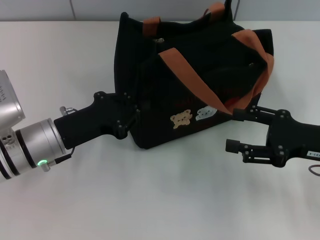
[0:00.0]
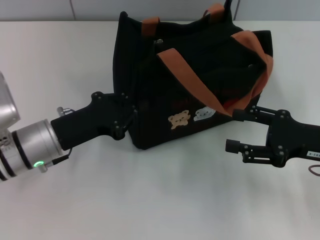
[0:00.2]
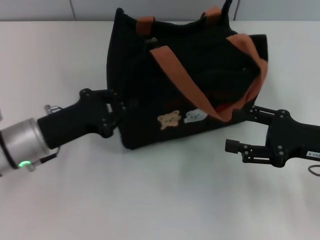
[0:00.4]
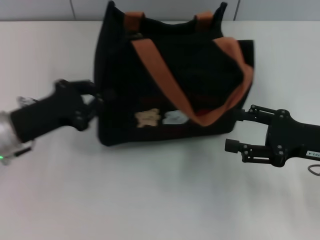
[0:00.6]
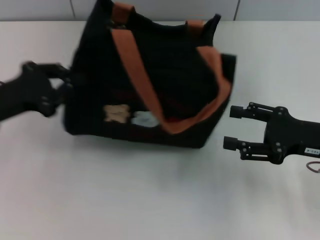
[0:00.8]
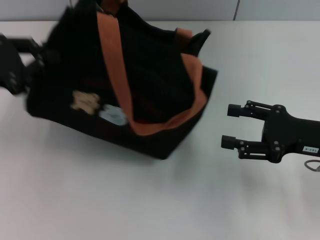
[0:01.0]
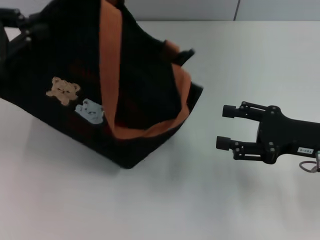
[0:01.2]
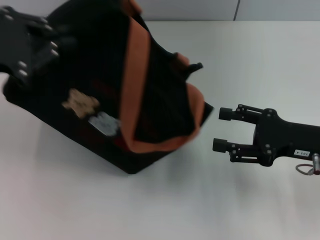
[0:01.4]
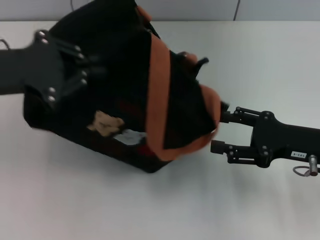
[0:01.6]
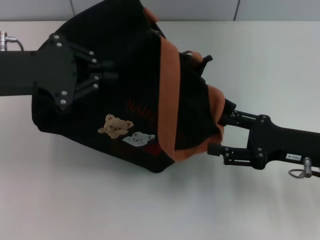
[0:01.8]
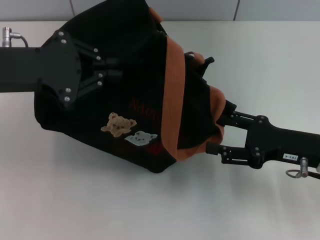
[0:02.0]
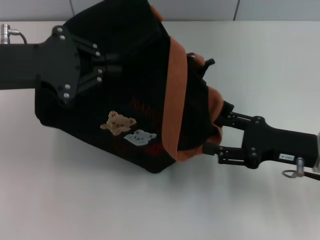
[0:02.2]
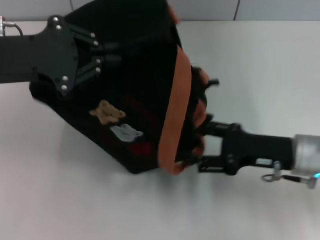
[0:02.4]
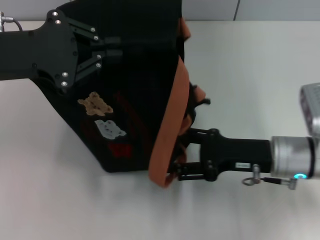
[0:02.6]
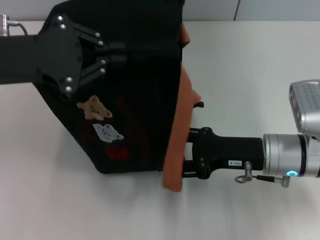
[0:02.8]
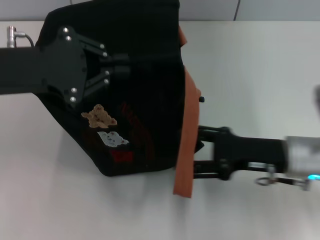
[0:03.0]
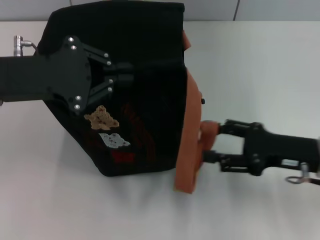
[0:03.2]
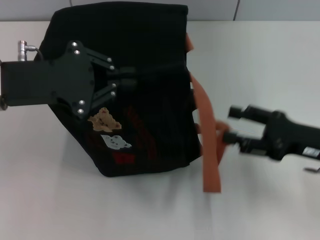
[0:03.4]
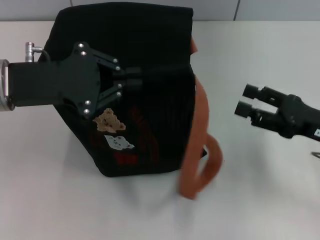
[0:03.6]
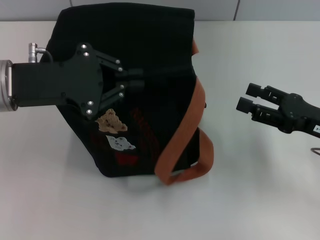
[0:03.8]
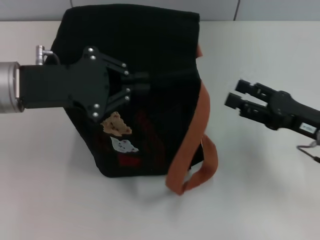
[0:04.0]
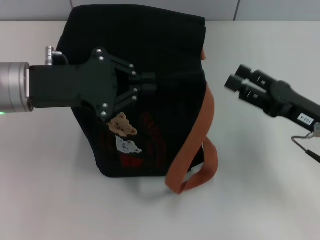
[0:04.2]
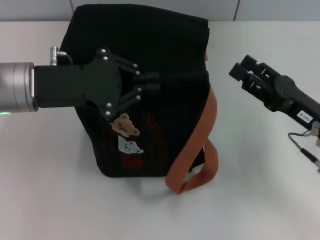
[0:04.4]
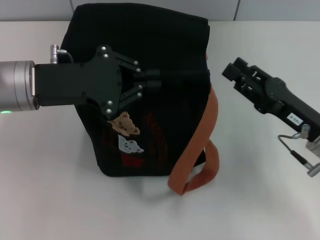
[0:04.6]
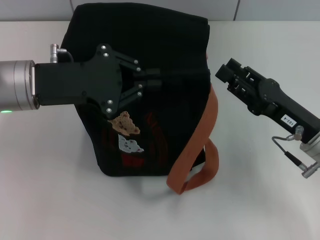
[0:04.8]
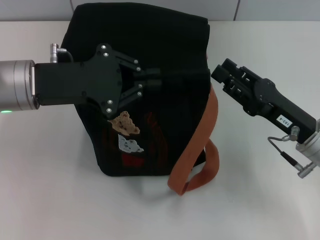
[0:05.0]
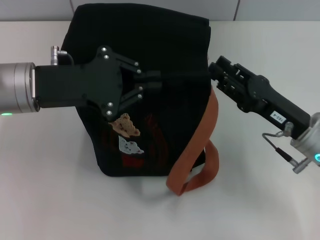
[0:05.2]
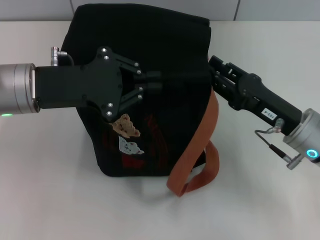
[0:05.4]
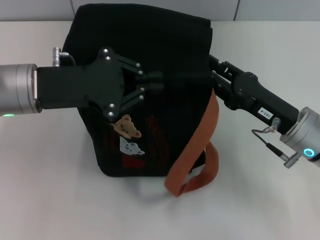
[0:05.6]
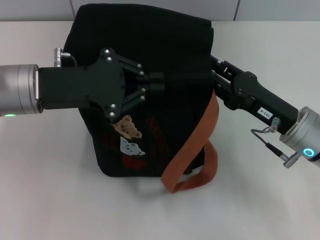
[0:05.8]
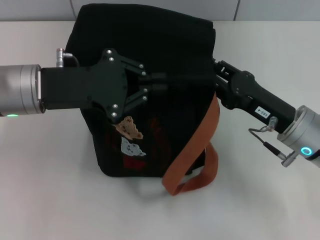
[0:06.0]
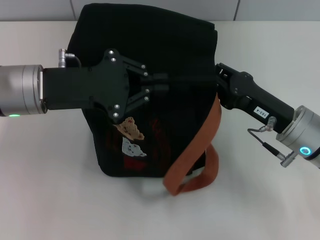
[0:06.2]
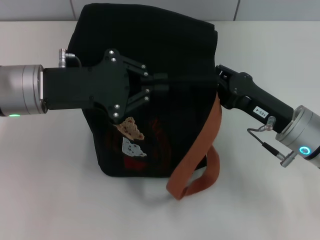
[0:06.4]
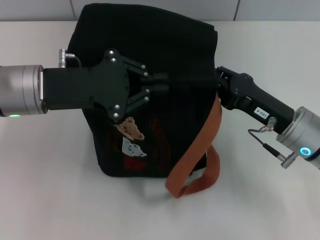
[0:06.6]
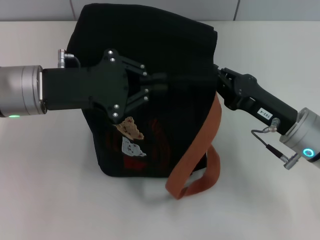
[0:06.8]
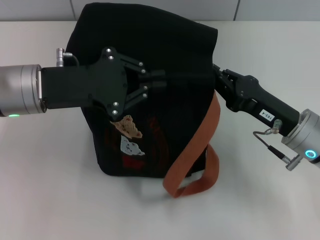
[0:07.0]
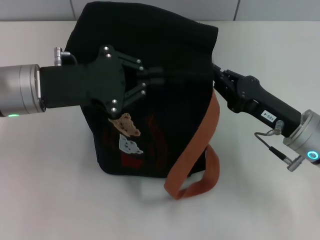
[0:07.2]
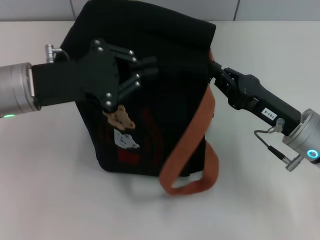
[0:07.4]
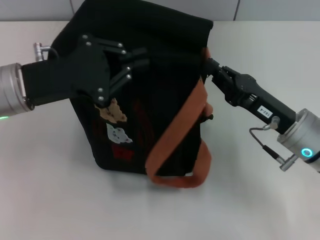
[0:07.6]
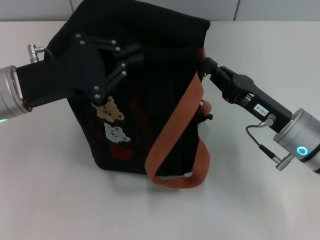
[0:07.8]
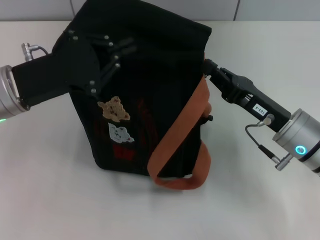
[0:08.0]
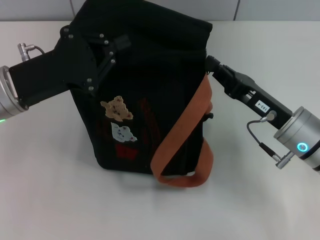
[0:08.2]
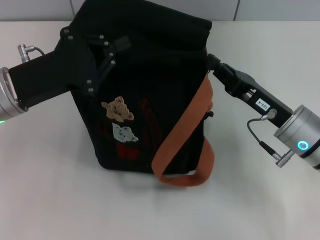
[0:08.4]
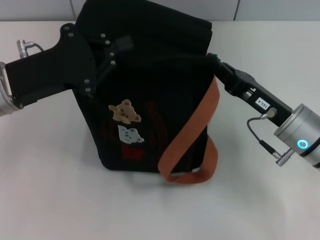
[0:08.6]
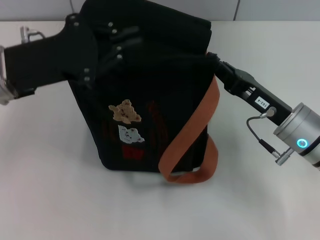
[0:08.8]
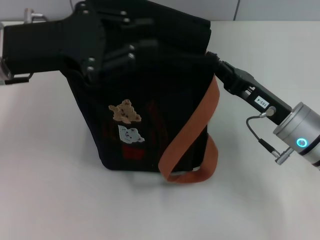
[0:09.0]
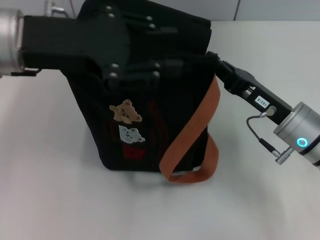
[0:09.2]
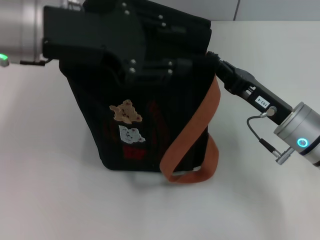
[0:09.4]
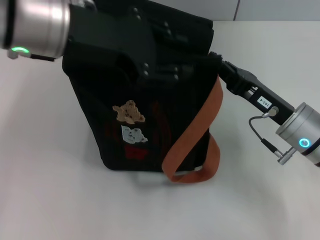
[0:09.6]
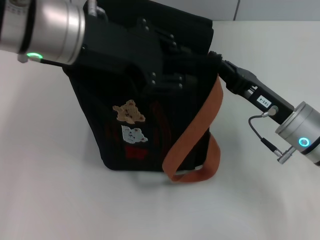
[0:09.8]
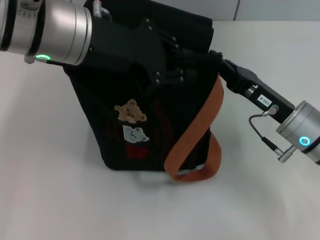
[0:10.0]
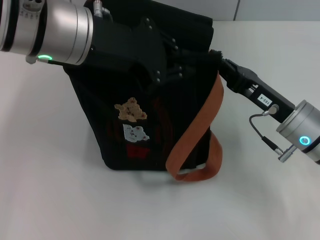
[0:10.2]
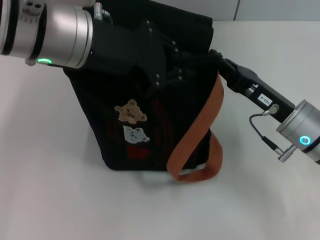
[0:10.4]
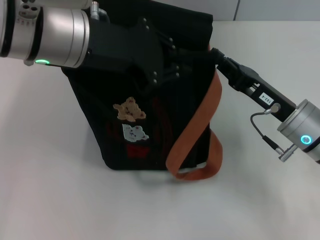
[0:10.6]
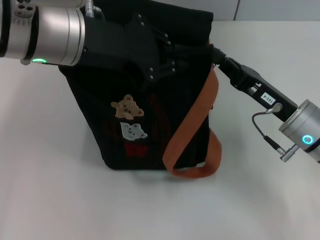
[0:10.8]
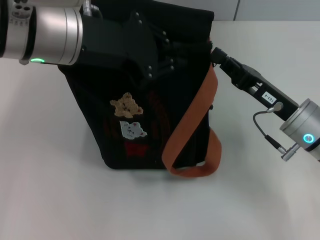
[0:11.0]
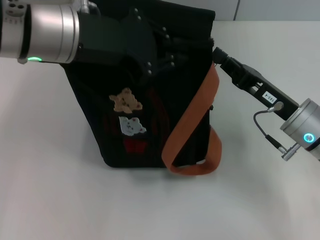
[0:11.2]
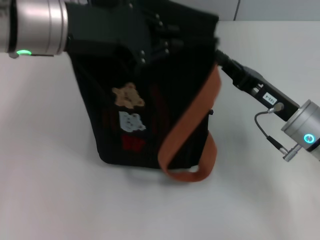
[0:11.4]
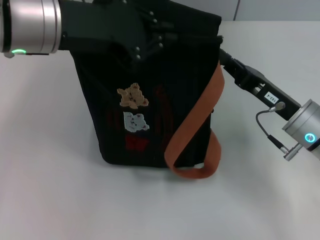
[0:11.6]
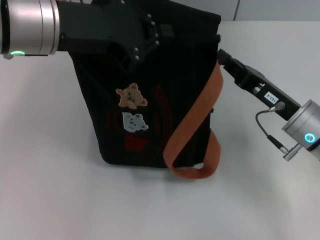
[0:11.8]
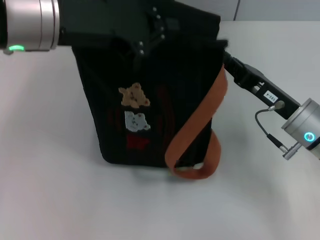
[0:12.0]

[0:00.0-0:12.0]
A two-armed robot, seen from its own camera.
0:00.0 to 0:01.6: The left gripper heads upward and to the left, covering about 15 cm.
0:01.6 to 0:03.0: The right gripper moves to the left, about 5 cm.
0:04.4 to 0:06.0: The right gripper goes about 5 cm to the left, and closes.
0:06.0 to 0:07.6: The right gripper closes.
0:07.6 to 0:09.0: The left gripper goes approximately 5 cm upward.
0:09.0 to 0:10.4: The left gripper travels to the right by roughly 10 cm.
0:10.4 to 0:12.0: There are only small adjustments of the grippers.

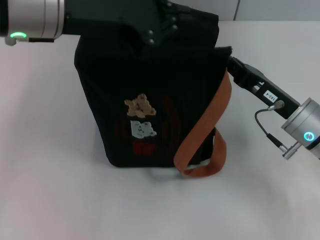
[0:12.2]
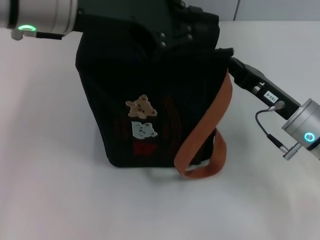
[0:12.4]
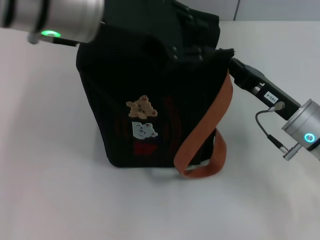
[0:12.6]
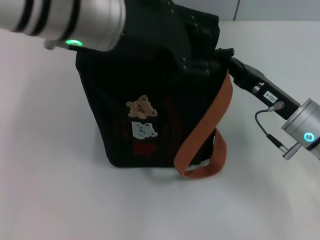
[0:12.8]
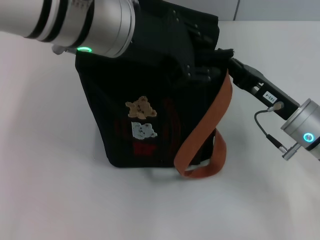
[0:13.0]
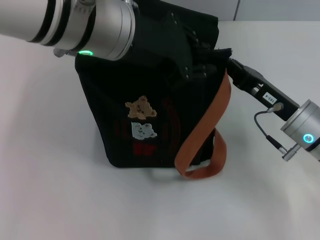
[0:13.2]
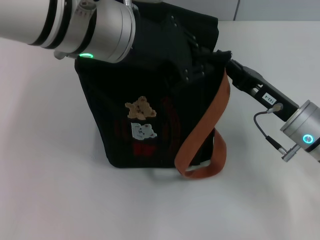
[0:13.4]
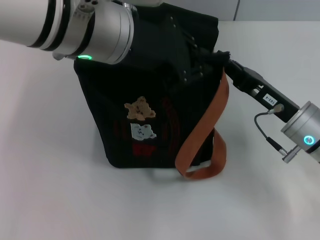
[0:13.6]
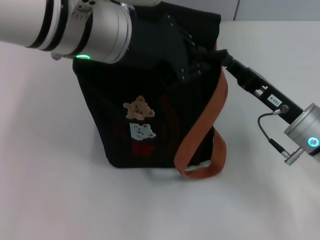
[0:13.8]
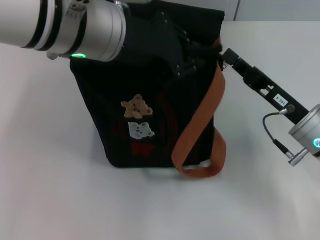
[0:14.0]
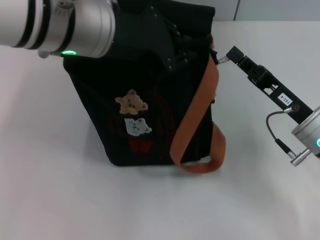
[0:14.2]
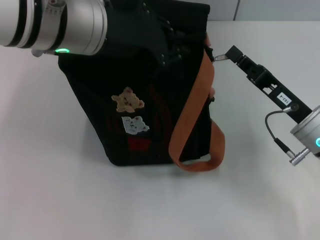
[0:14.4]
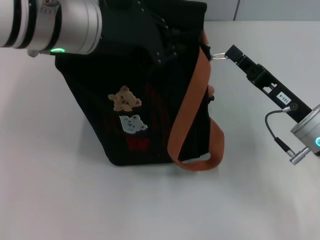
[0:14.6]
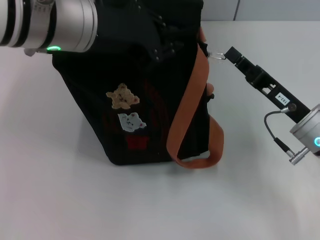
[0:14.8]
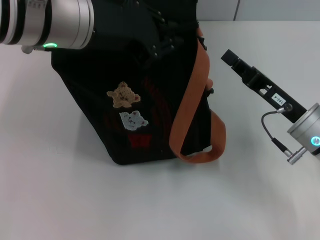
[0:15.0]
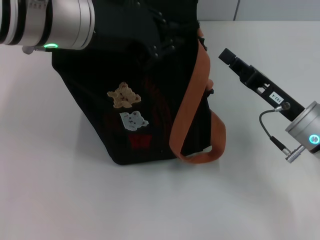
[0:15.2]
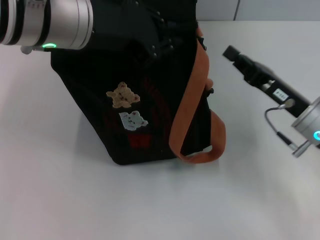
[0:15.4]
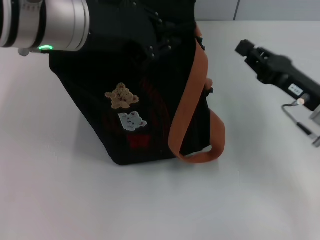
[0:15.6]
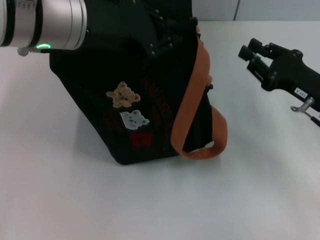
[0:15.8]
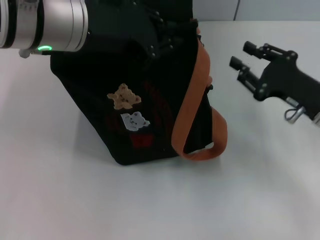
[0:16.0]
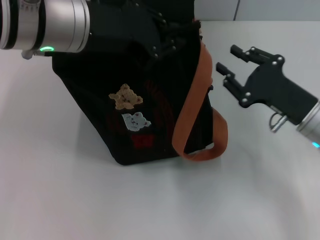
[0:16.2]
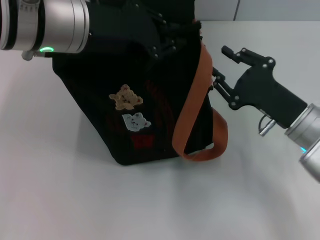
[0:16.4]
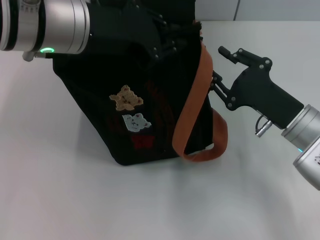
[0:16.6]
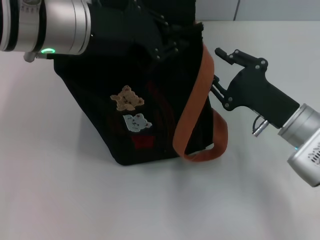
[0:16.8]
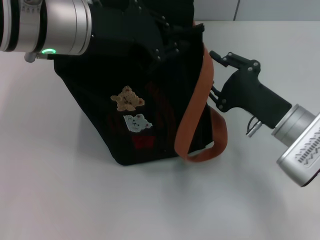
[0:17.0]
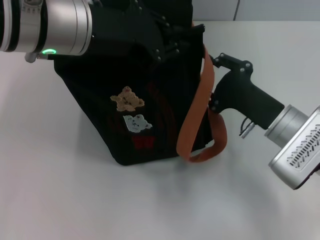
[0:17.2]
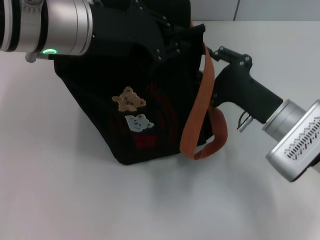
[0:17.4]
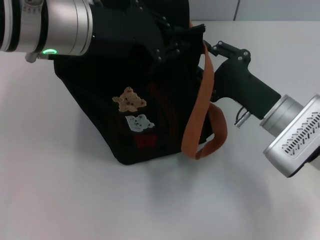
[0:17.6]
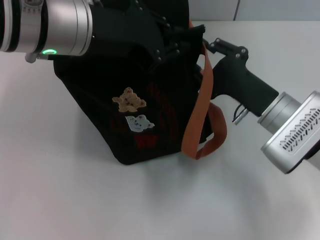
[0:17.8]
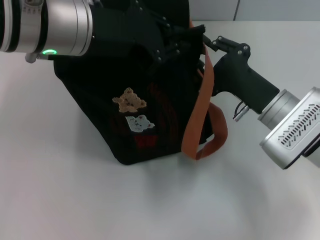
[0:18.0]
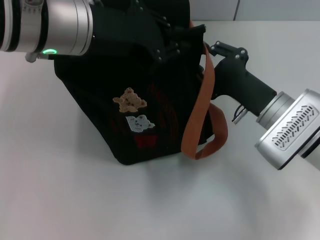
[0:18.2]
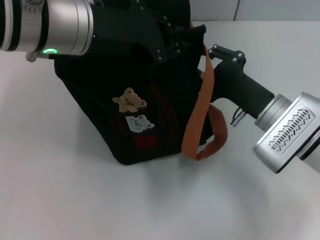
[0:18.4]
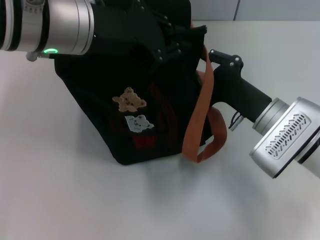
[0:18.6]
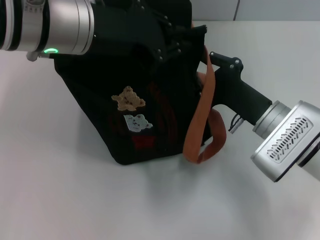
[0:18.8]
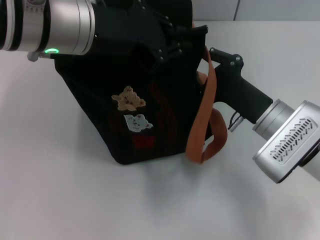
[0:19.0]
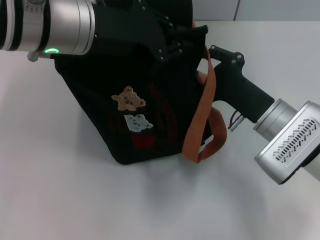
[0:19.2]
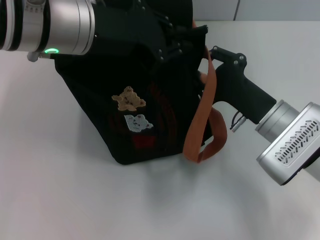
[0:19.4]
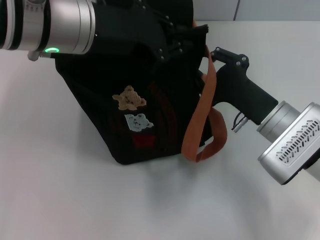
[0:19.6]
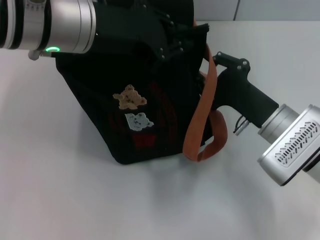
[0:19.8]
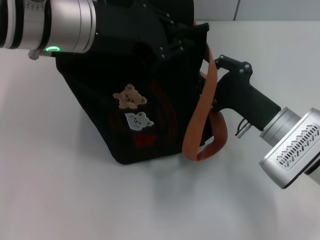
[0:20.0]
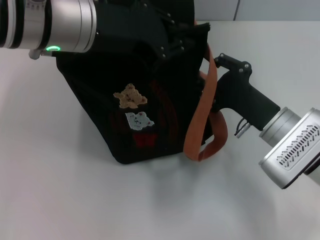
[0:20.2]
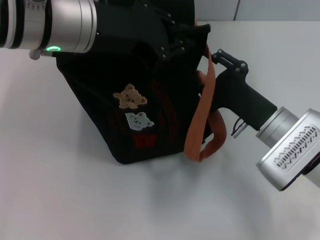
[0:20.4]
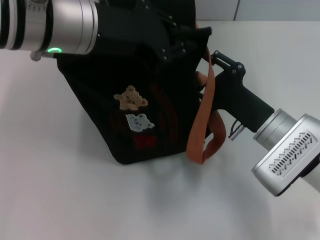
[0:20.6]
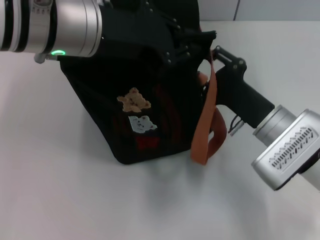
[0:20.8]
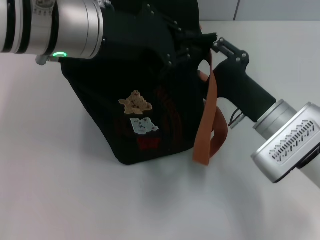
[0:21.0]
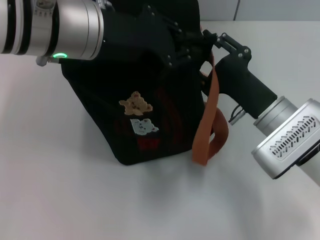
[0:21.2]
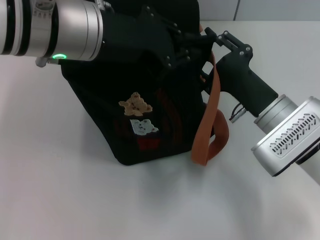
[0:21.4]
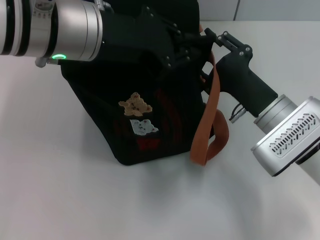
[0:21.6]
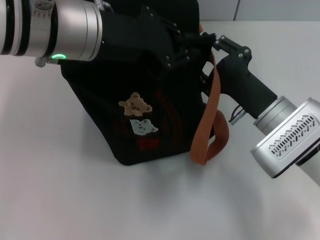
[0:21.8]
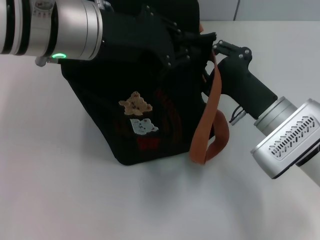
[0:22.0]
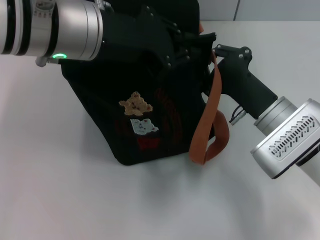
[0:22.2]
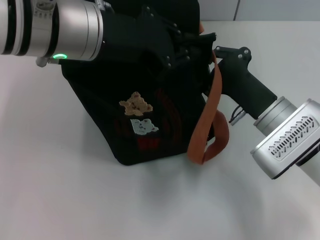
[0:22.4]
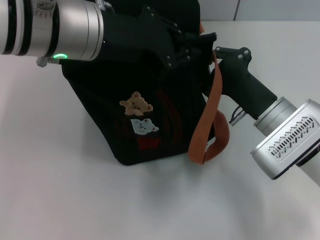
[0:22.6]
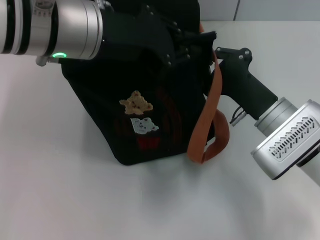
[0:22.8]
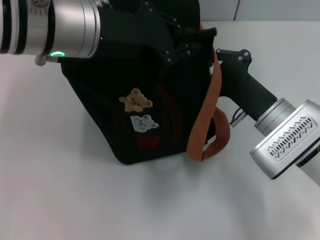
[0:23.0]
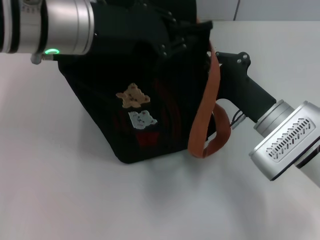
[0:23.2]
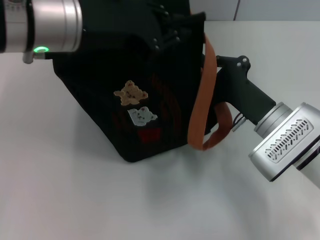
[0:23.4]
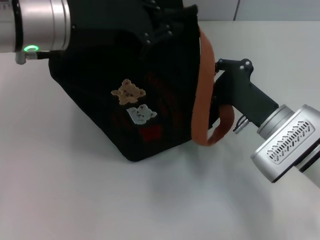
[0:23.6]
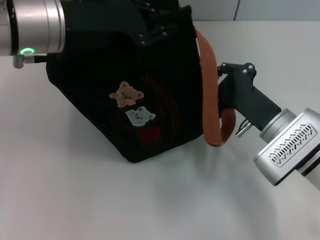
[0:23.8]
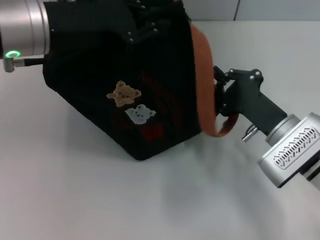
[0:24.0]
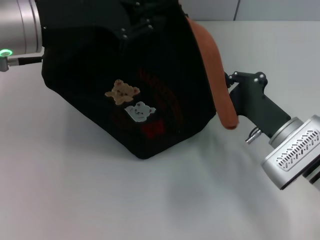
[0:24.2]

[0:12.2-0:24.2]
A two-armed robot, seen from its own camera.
0:12.2 to 0:13.8: The left gripper shifts roughly 5 cm to the right, and opens, then closes once more.
0:15.2 to 0:16.6: The right gripper opens.
0:16.6 to 0:19.8: The grippers make only small movements.
0:19.8 to 0:21.2: The two grippers keep their place.
0:21.2 to 0:22.6: The right gripper closes.
0:22.6 to 0:24.2: The left gripper shifts about 5 cm to the left.
